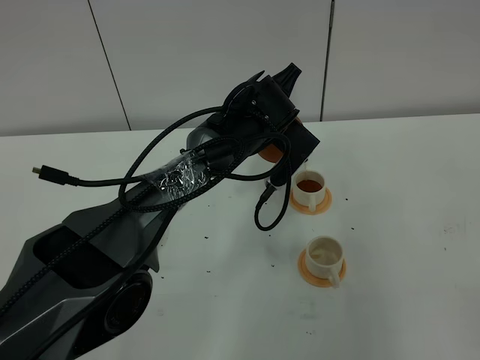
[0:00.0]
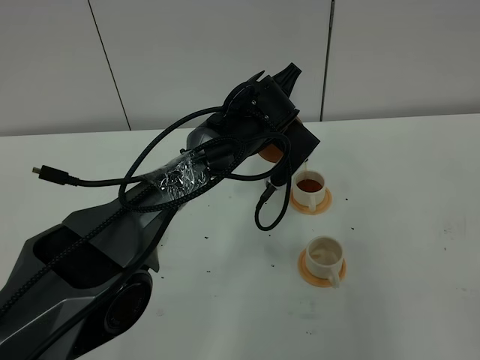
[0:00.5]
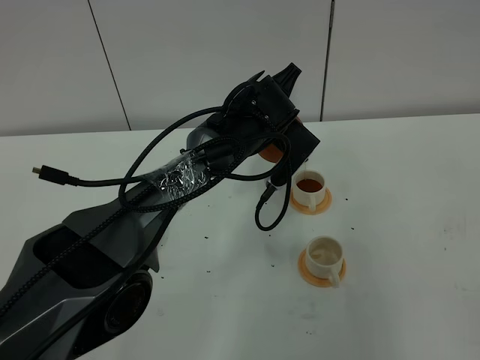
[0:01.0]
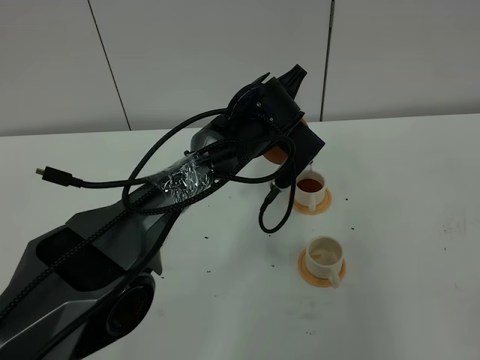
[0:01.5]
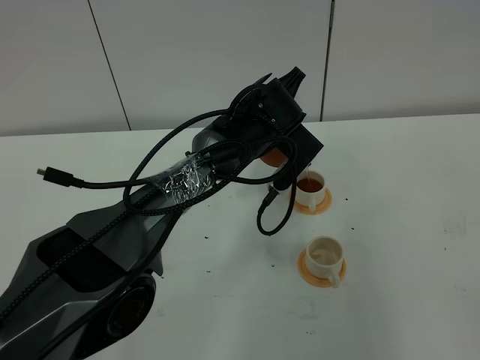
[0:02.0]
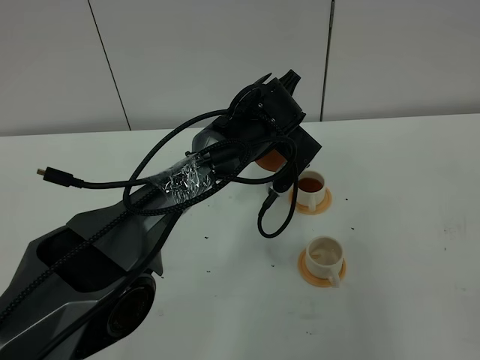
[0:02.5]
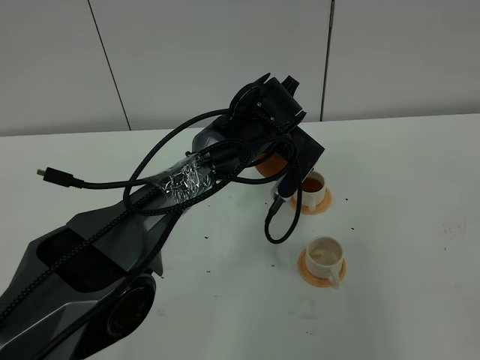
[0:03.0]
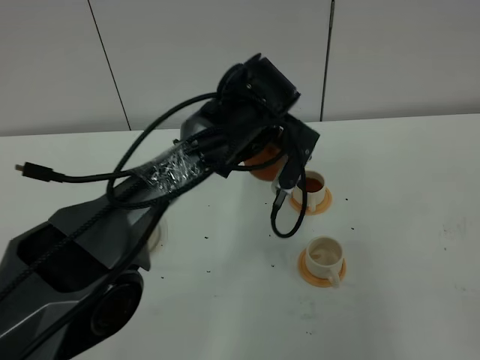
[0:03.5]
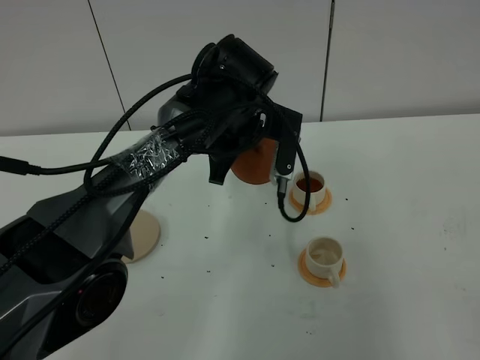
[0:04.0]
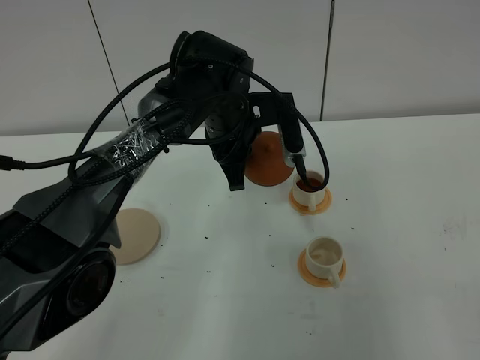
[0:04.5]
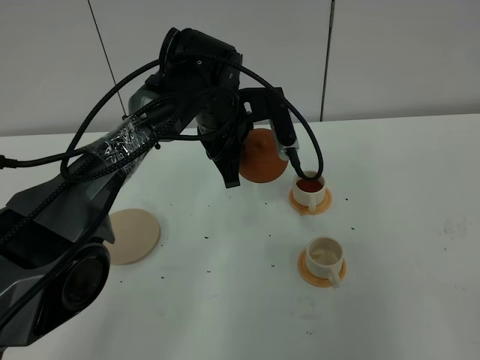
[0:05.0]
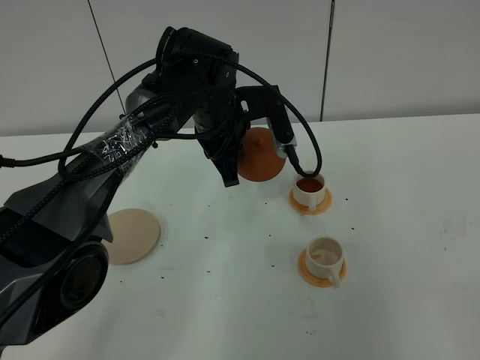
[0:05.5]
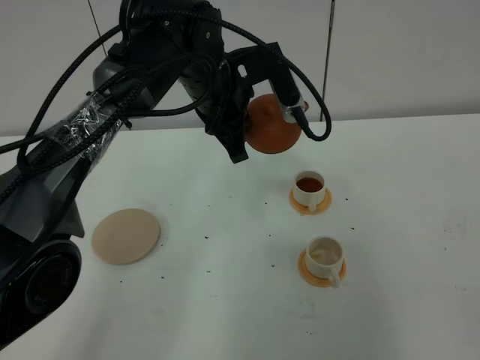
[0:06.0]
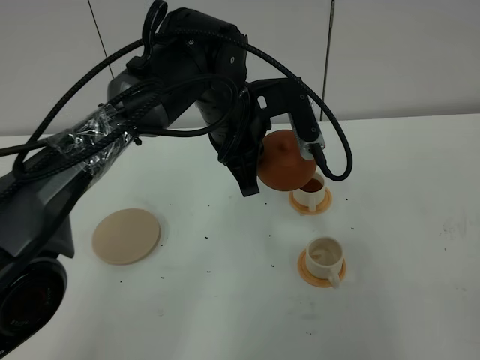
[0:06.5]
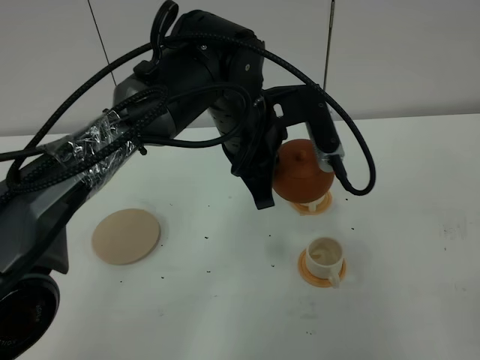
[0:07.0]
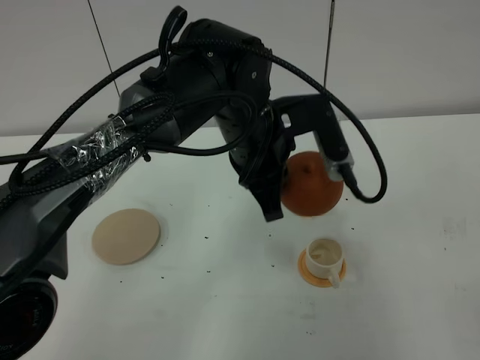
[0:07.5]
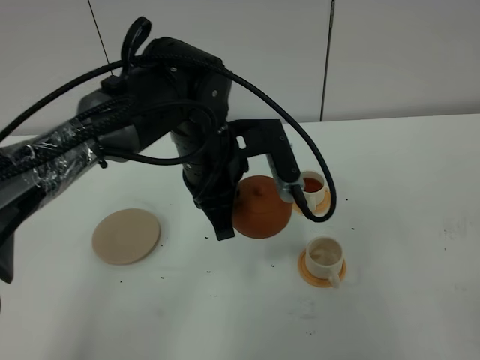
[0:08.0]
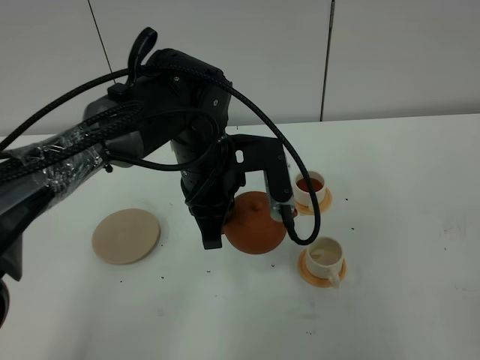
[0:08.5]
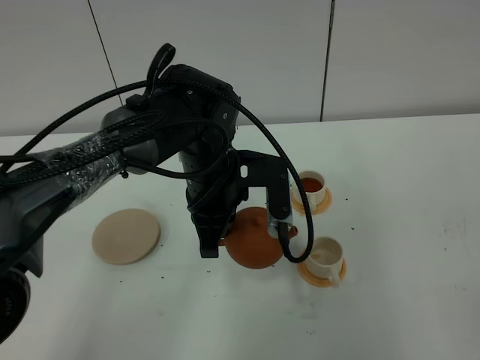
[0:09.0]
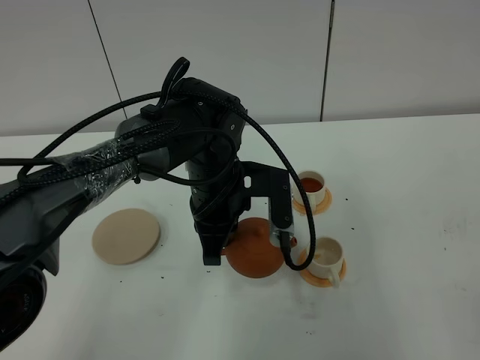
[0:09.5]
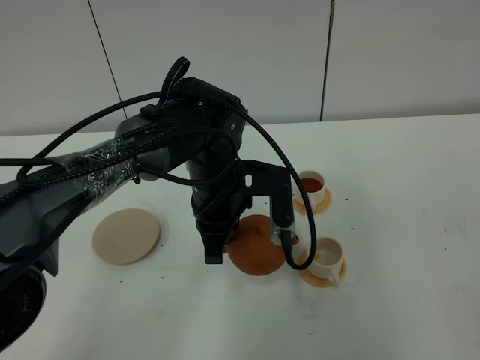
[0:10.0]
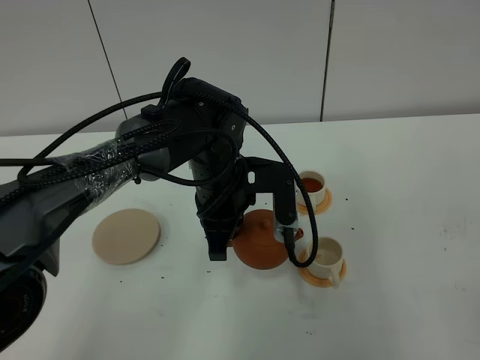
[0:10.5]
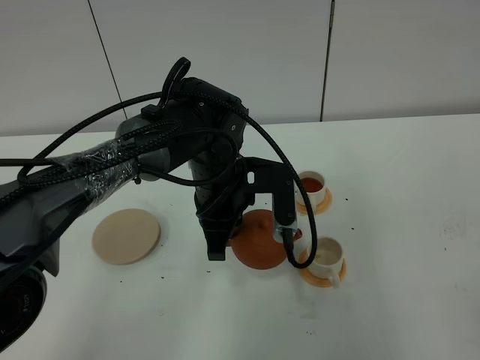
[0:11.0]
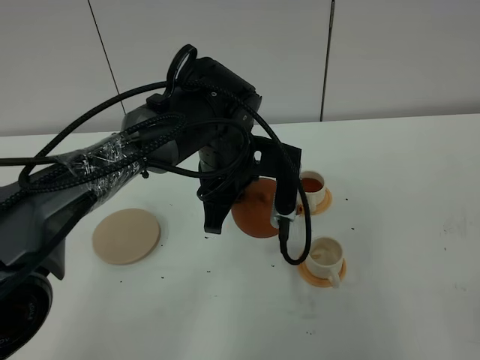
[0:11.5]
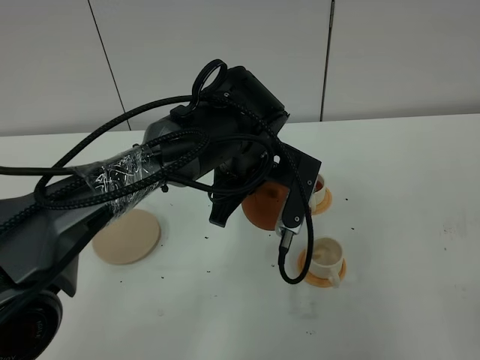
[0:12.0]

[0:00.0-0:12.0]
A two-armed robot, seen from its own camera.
Task of the whole recording: grasp the brown teapot and pour the tea into the two white teacups one by one, put the brown teapot back in its original place.
Step, 0.0 to 4.0 s: Pour tea into the teacup with the left gripper.
0.0 to 2.0 s: The two grippers keep their place.
2.0 to 4.0 s: The left gripper shifts by roughly 5 cm.
4.0 to 6.0 s: The left gripper changes place by roughly 5 cm.
6.0 to 8.0 s: The left gripper shifts some 10 cm backward.
8.0 to 10.0 s: The left gripper shifts approximately 5 cm downward.
10.0 to 12.0 s: The left gripper shifts by some 5 cm.

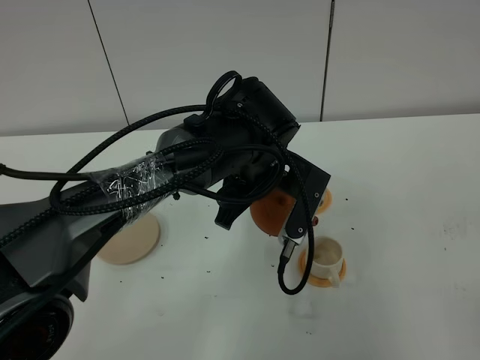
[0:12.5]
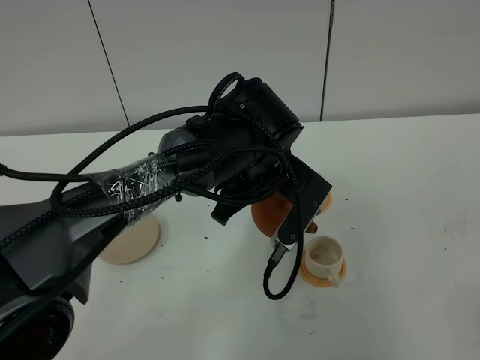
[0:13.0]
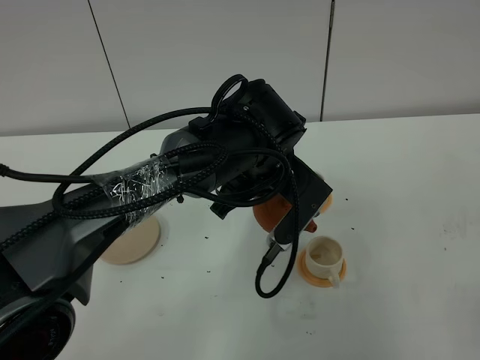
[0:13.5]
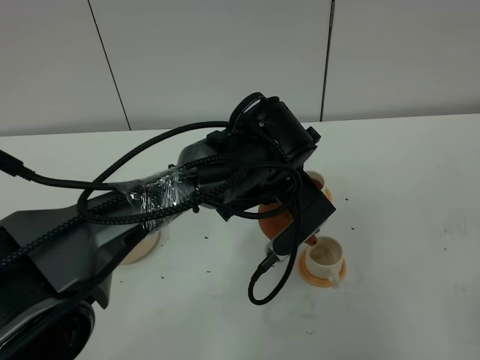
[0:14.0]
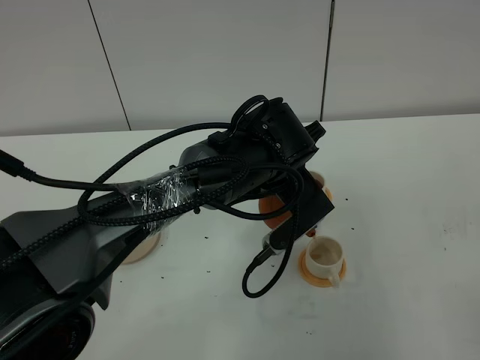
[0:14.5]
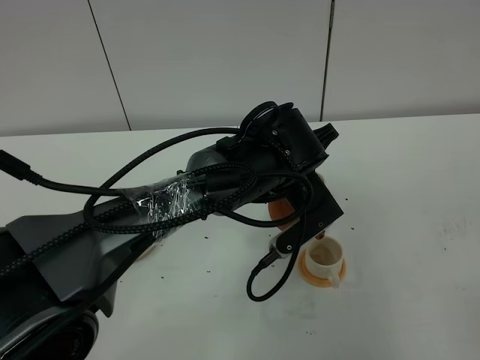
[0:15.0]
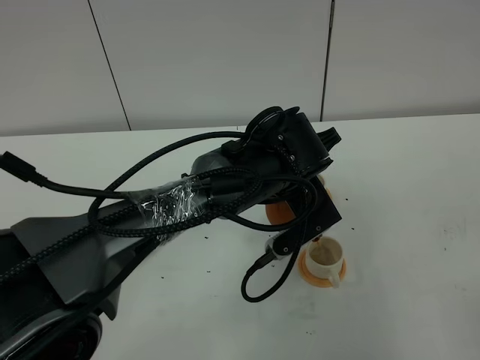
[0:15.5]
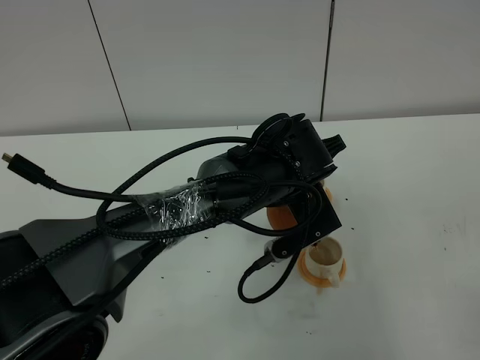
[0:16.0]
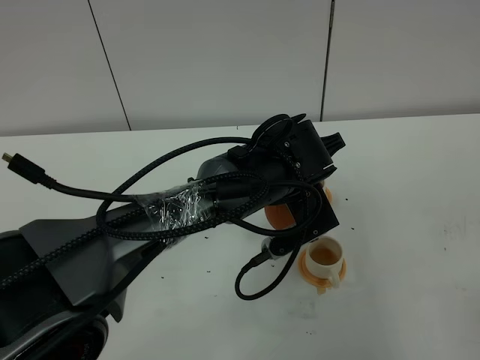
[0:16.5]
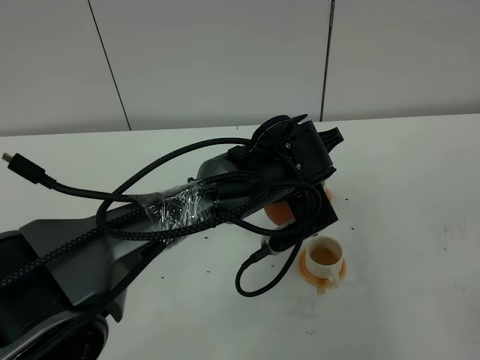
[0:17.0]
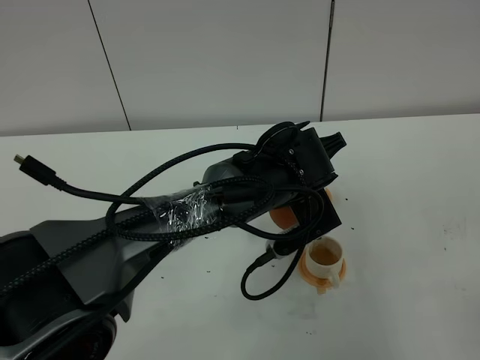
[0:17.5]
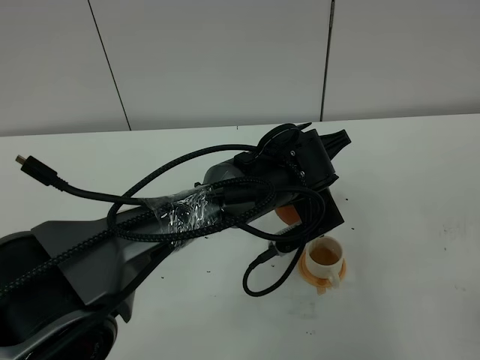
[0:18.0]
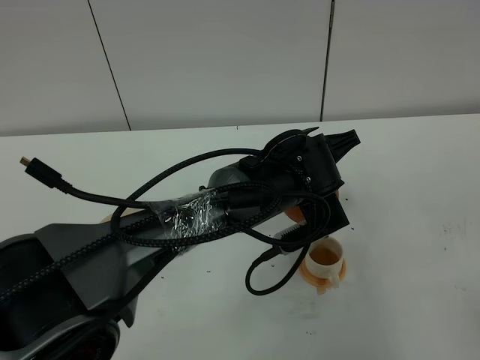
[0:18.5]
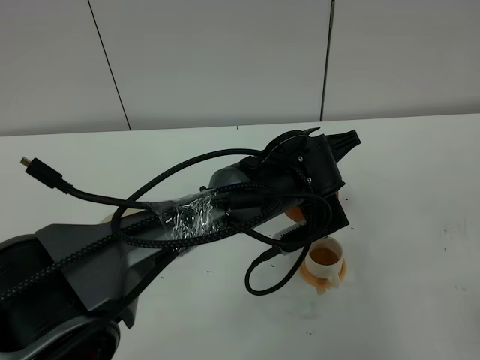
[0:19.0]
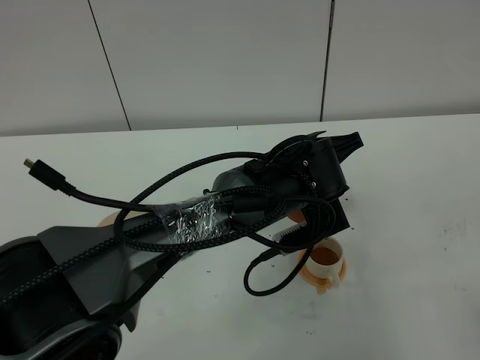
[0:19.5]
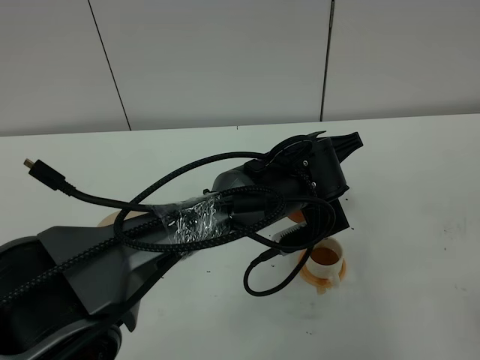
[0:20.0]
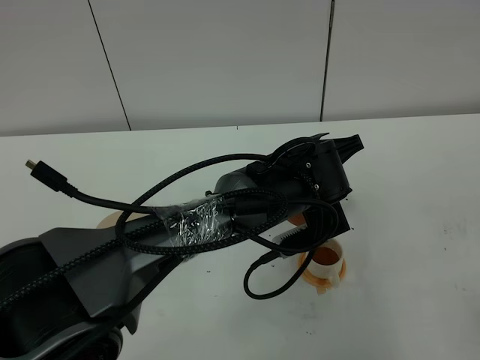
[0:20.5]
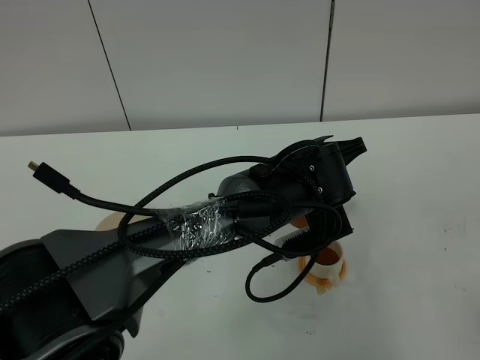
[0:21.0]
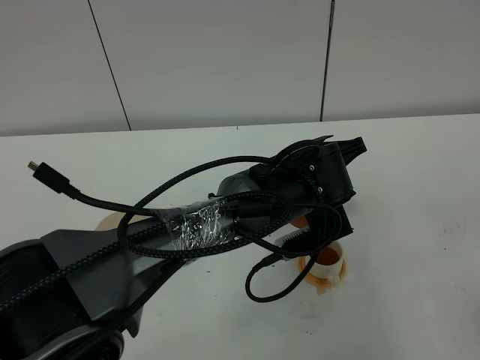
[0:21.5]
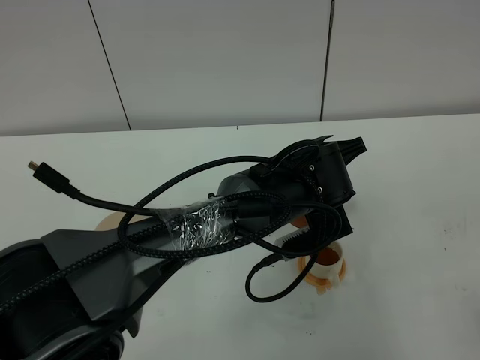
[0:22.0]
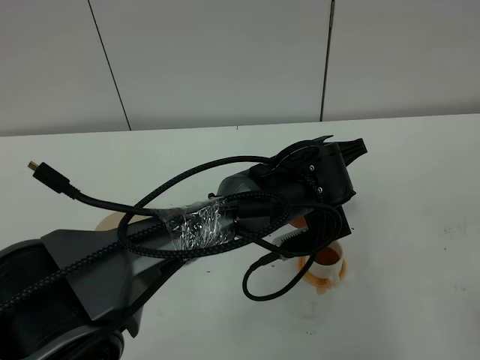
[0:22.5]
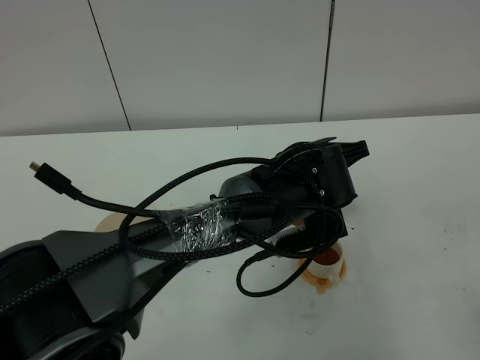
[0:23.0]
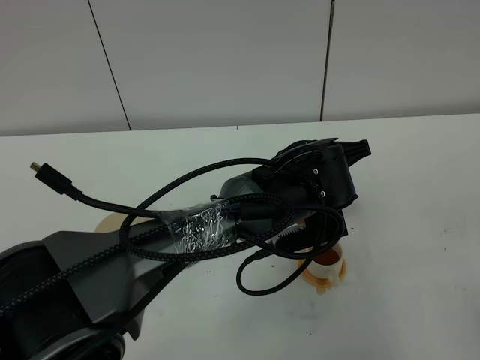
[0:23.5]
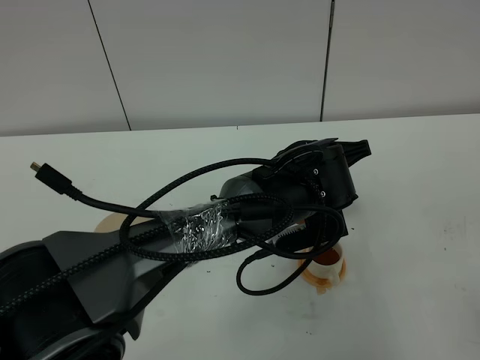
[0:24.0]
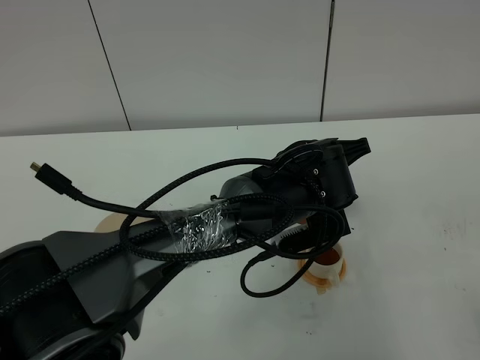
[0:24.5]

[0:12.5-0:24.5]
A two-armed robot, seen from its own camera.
Task of the whole recording: grasp the brown teapot and pour the tea into the two white teacups one by one, put the brown teapot back in its original place.
14.5 to 18.5 s: The grippers move only a little.
18.5 to 20.5 s: Neither gripper changes place.
20.5 to 22.5 s: Both grippers stay put.
22.5 to 24.5 s: The two grippers keep their place.

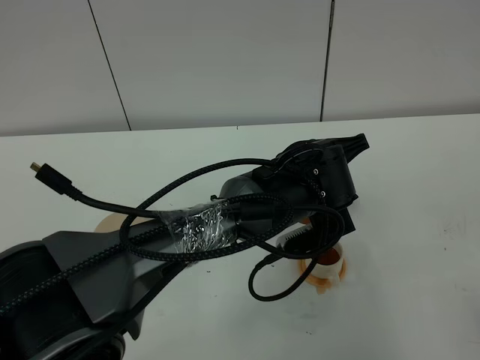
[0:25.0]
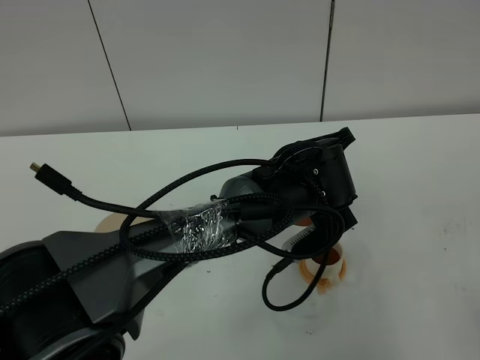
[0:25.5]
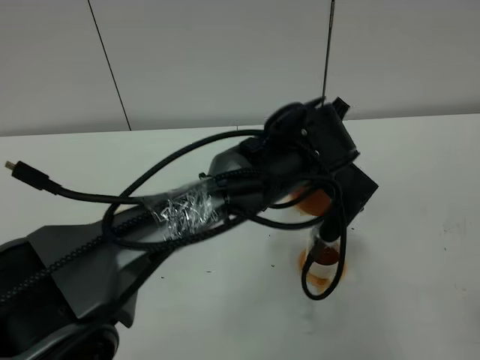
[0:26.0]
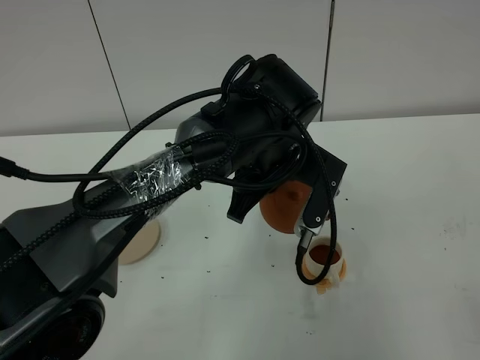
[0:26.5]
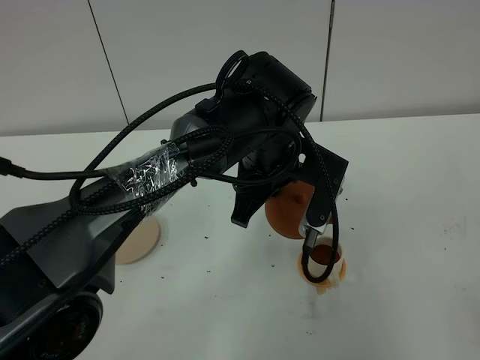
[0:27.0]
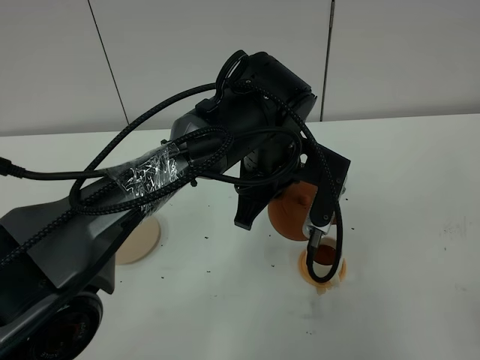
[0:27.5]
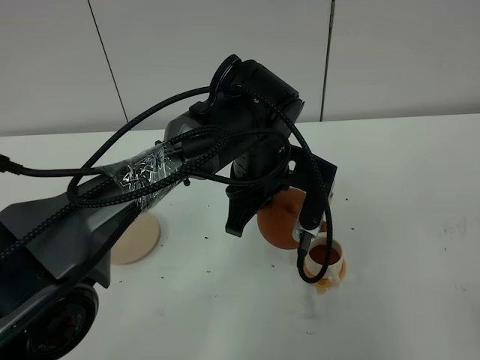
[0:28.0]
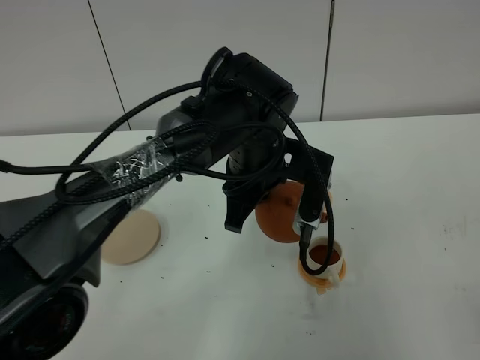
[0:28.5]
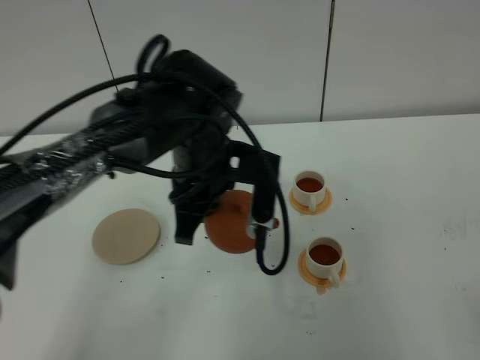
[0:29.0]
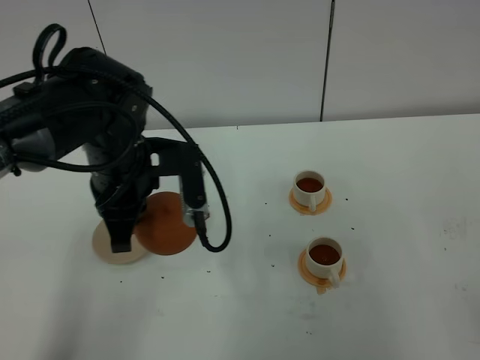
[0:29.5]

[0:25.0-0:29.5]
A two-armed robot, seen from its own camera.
Task of the whole recording: grasp the brown teapot and pour the tea into the two white teacups one by one, put the brown teapot back in its original place.
Step, 25.0 to 27.0 s: Pour tea into the teacup with the left gripper.
25.0 to 27.0 s: The left gripper goes roughly 5 cm to the left.
27.0 to 29.5 s: The left gripper travels to the left by roughly 15 cm.
